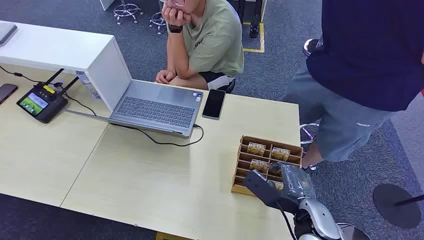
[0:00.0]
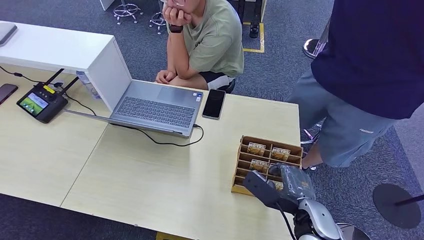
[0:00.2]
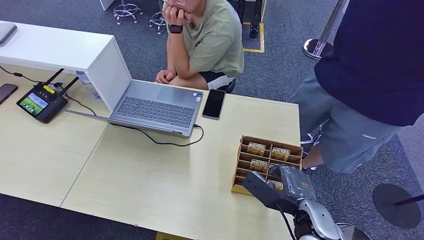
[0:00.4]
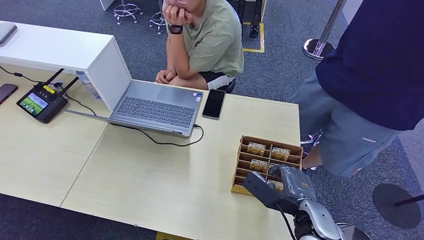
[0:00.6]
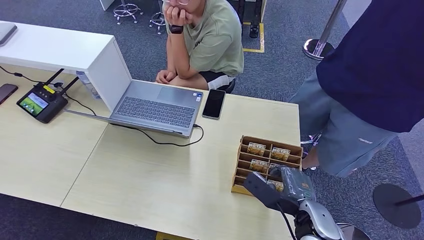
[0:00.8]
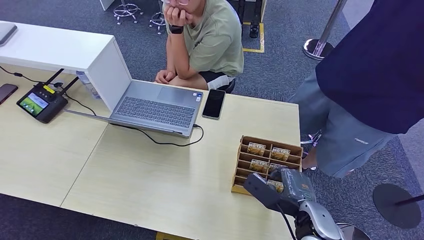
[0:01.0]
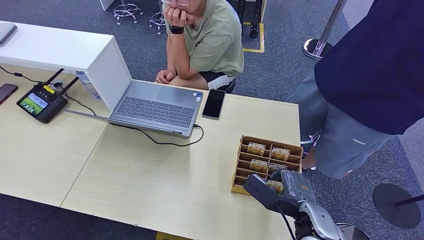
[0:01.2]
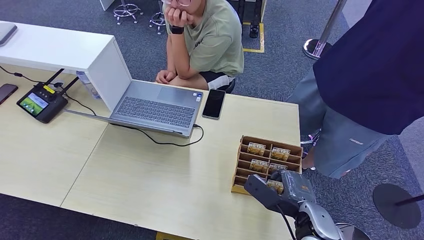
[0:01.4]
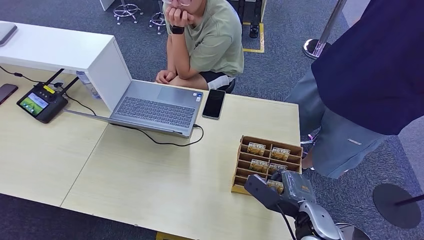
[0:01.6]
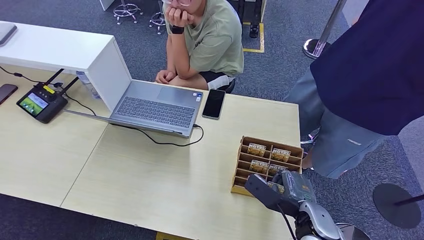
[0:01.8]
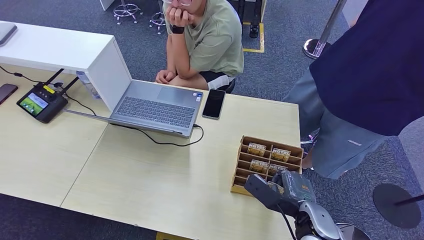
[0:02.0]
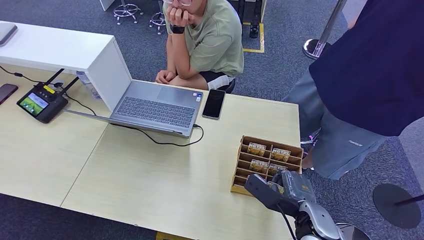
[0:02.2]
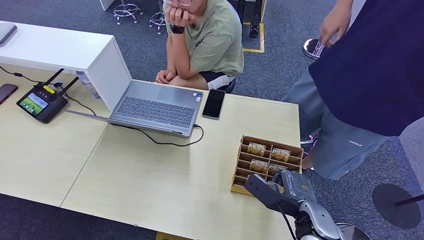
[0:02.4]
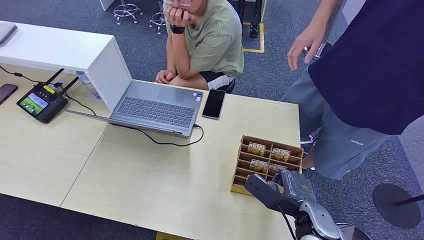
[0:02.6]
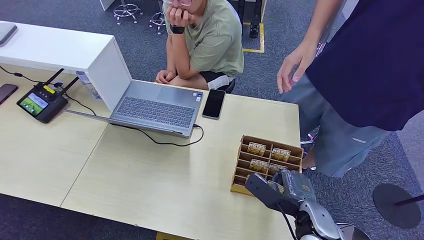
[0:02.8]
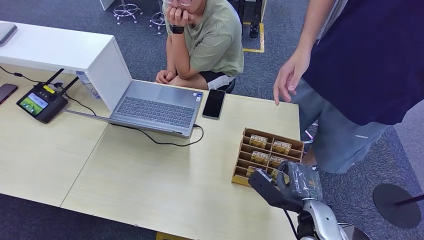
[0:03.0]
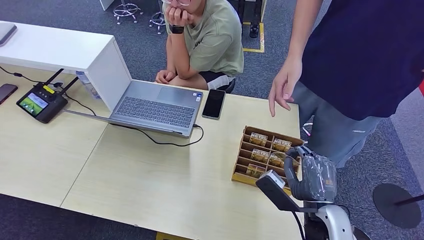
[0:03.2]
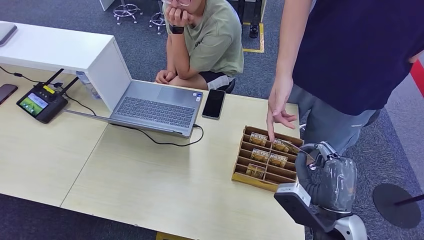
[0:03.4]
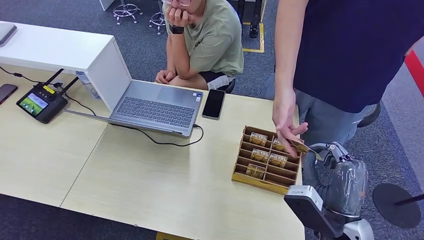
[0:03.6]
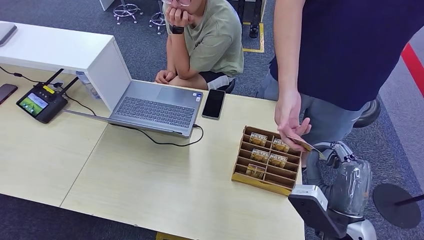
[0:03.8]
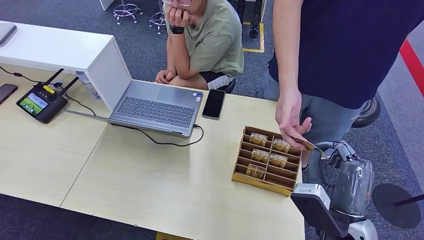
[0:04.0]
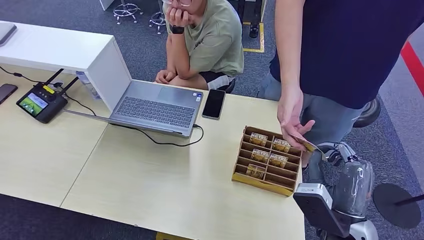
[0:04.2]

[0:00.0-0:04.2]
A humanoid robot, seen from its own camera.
Step, 0:00.0 to 0:03.2: Pick up the key card from the card box.
Step, 0:03.4 to 0:04.0: Hand the key card to the target.
0:01.4 to 0:02.8: The two hands keep their place.
0:02.8 to 0:04.2: The right hand travels upward by some 5 cm.
